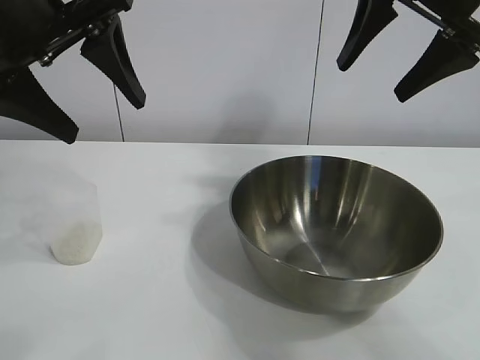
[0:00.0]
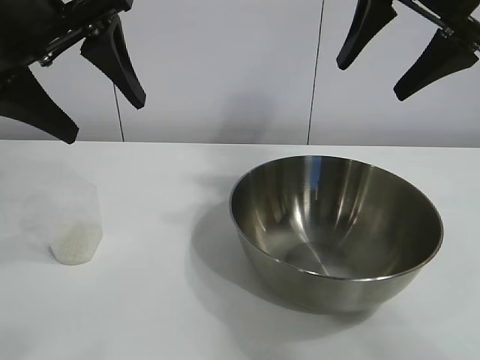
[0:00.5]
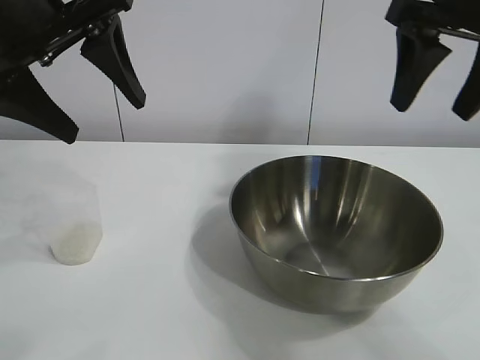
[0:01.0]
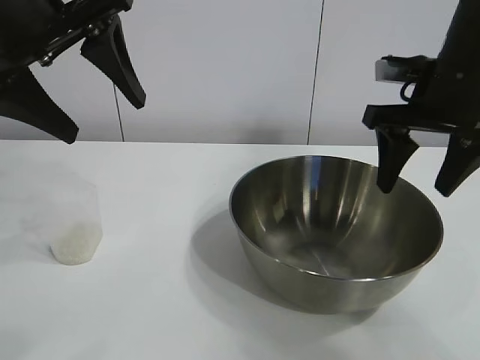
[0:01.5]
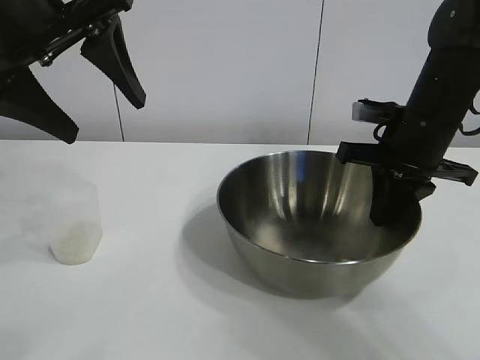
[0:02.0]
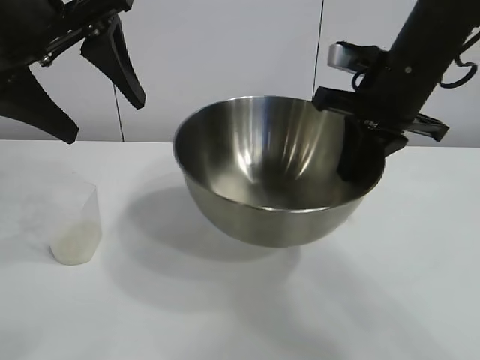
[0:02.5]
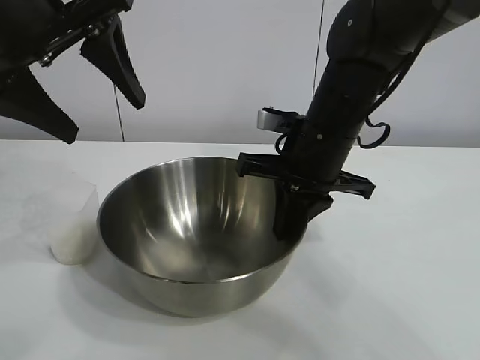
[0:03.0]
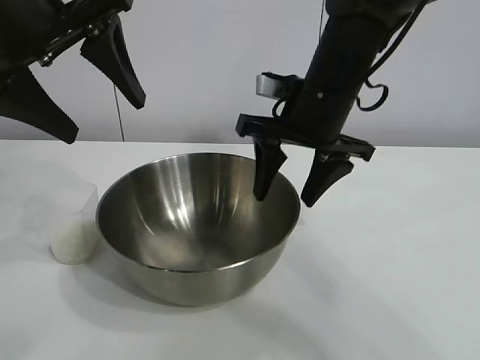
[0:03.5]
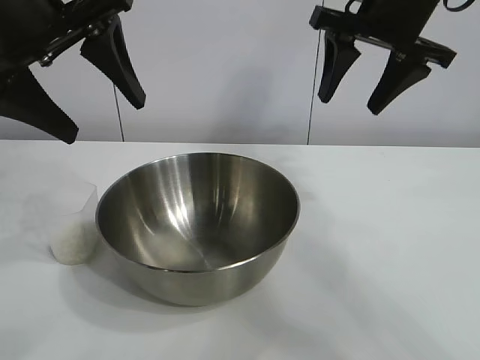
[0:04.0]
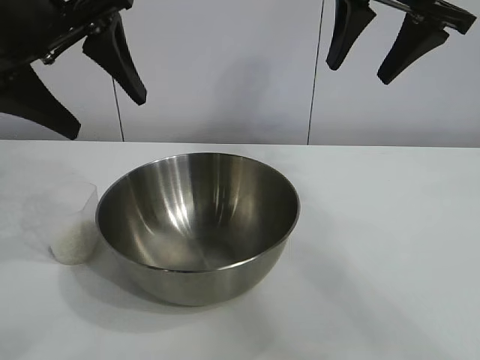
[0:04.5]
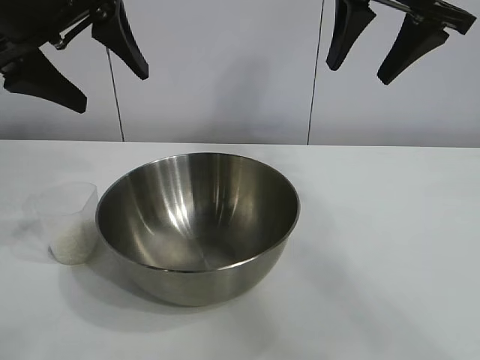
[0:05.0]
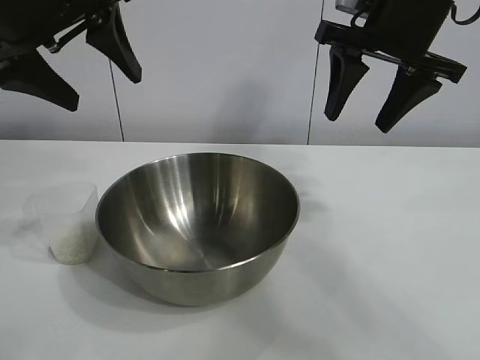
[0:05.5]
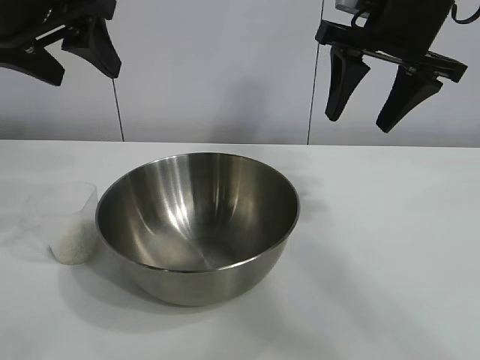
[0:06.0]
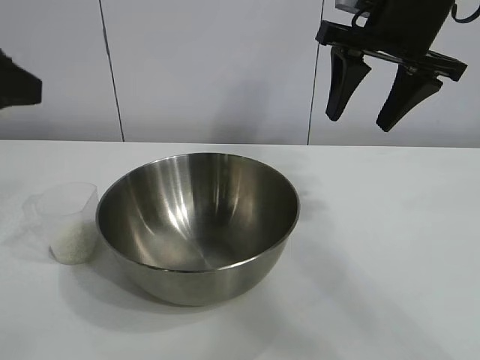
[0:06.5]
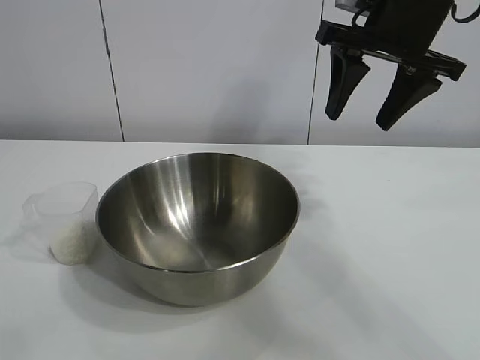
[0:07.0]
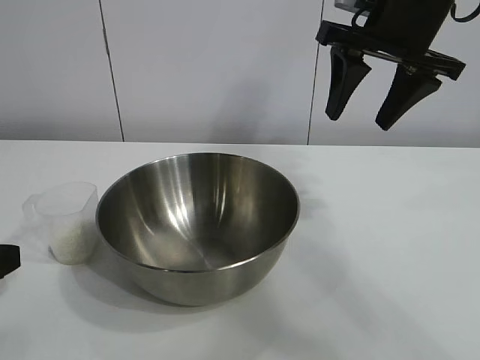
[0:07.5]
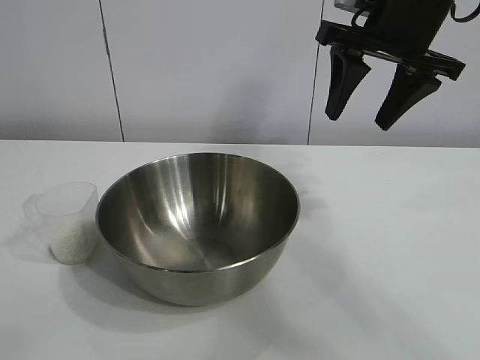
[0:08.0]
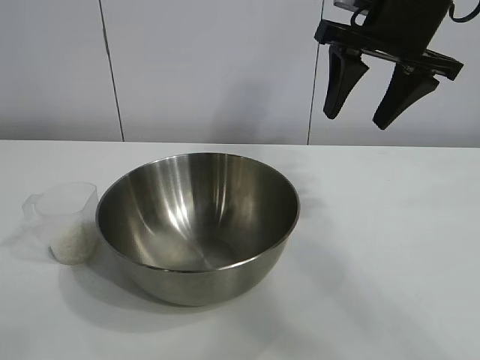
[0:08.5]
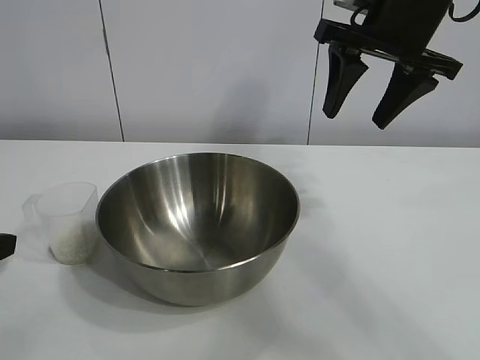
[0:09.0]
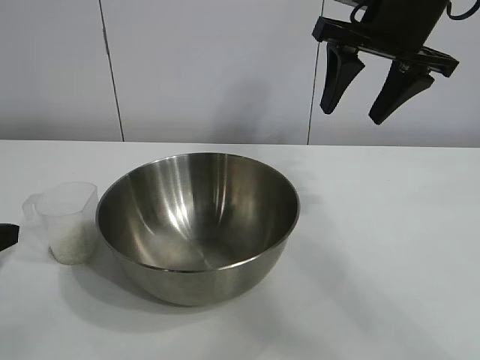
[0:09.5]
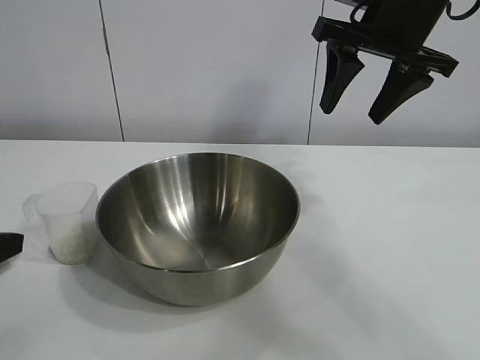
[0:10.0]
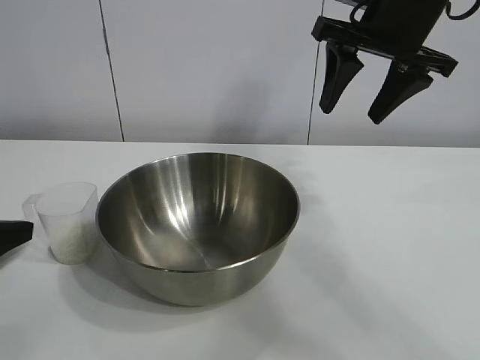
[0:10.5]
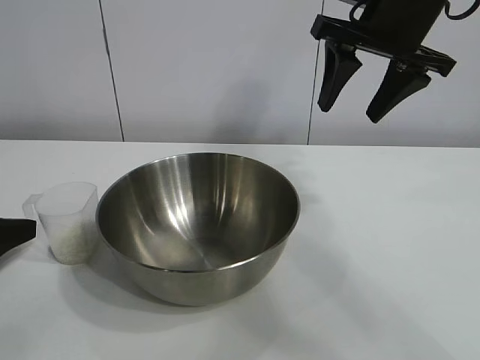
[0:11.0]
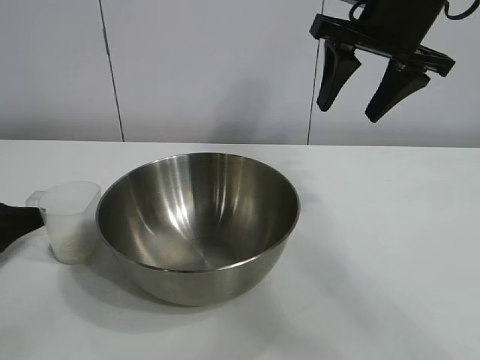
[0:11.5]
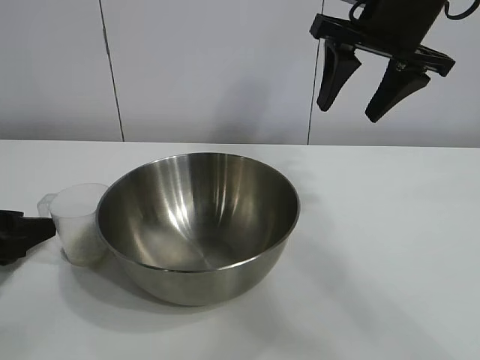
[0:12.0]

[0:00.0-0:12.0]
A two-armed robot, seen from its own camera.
Task of the whole recording: the right gripper grasp the rice container and place it in the center of the table, the left gripper grasp the rice scoop and pour the rice into the rice container.
Step, 0:01.0 to 0:03.5: Move the bowl in the center of view with right gripper.

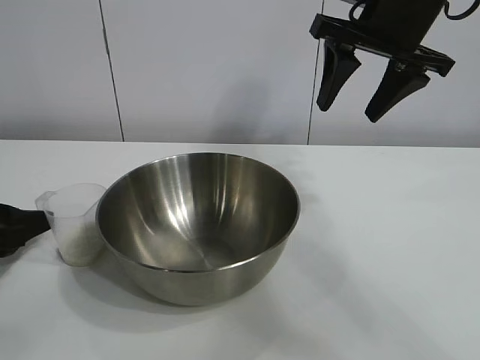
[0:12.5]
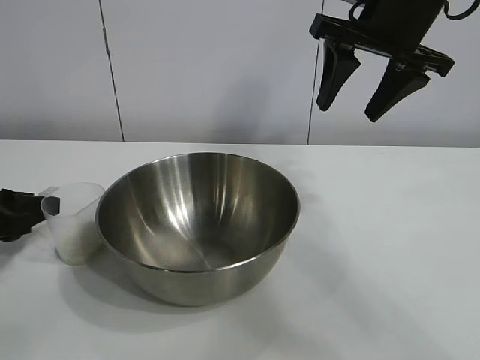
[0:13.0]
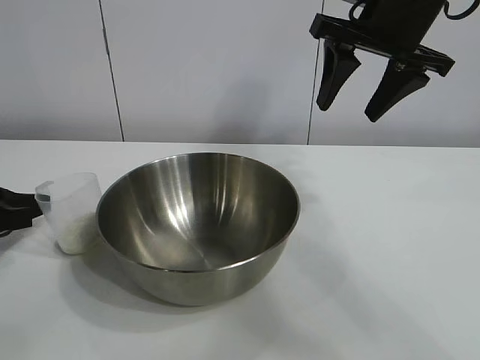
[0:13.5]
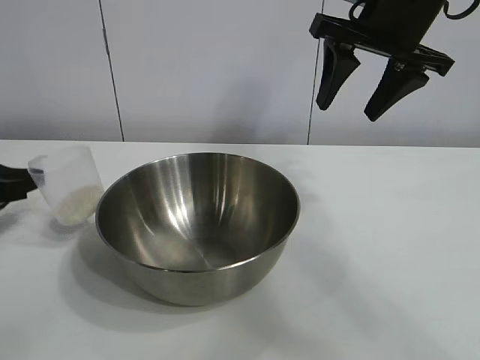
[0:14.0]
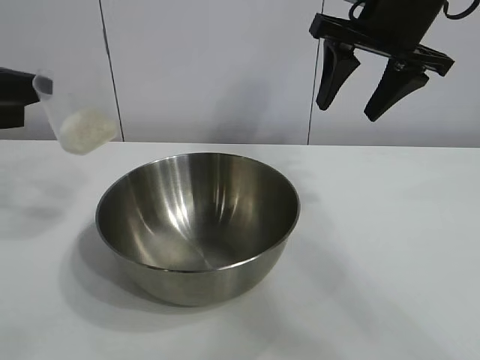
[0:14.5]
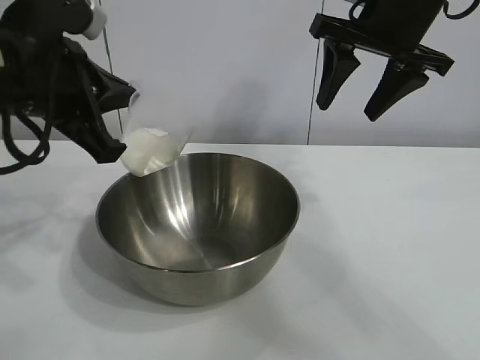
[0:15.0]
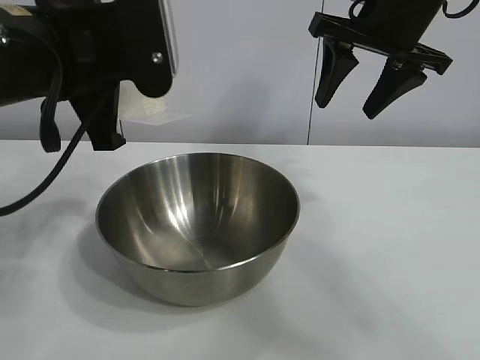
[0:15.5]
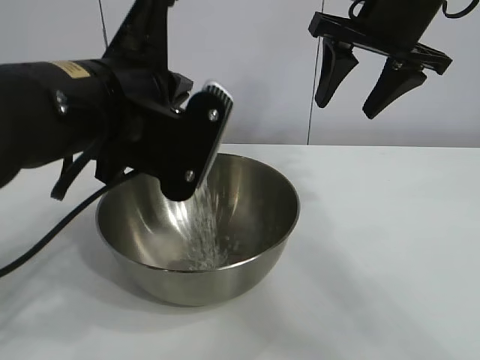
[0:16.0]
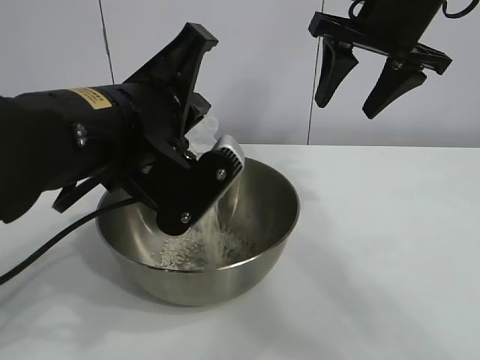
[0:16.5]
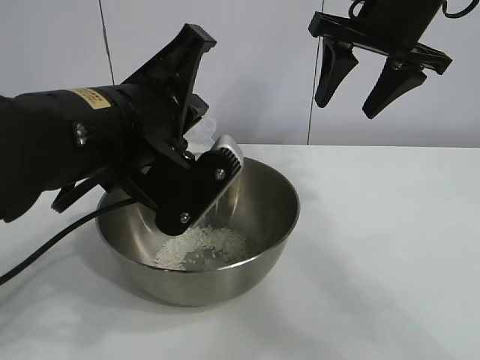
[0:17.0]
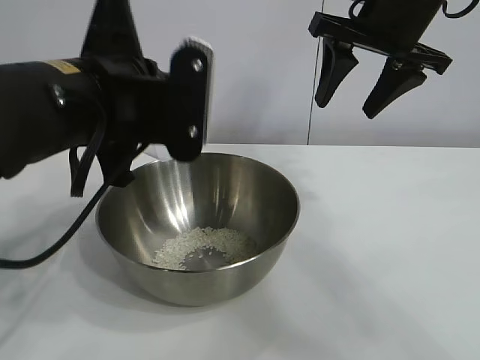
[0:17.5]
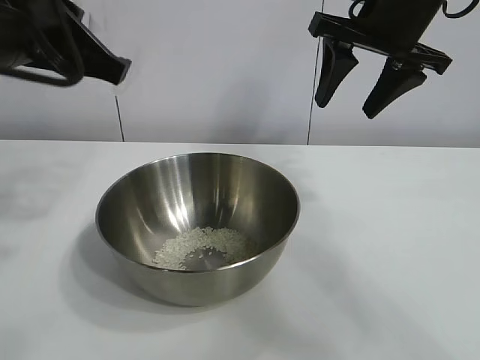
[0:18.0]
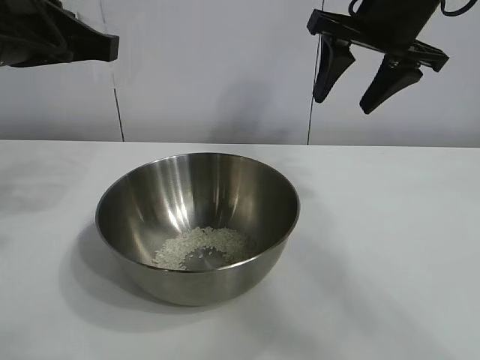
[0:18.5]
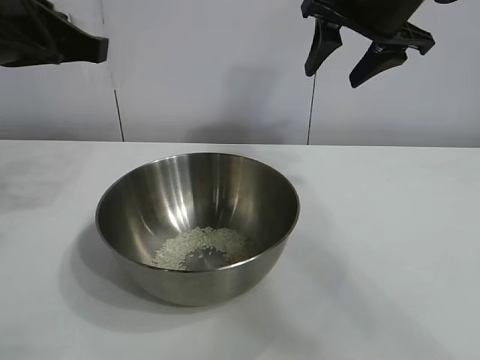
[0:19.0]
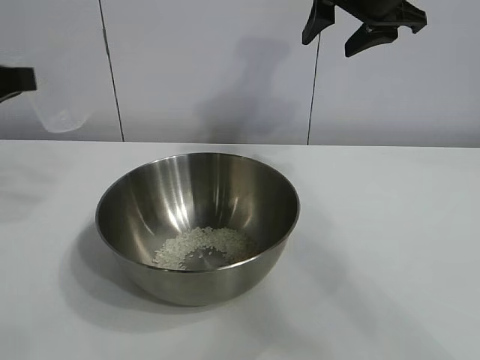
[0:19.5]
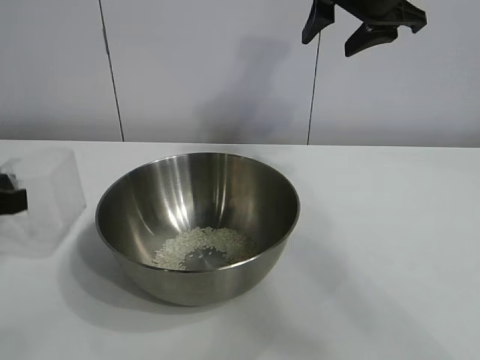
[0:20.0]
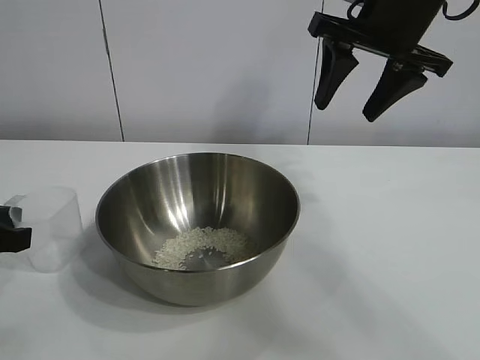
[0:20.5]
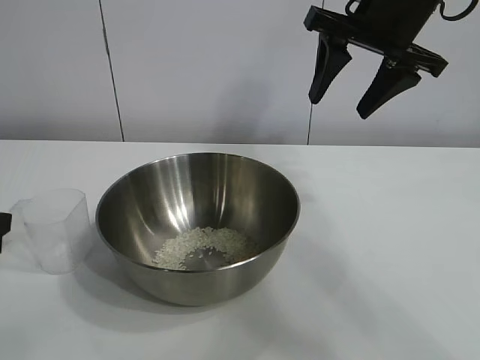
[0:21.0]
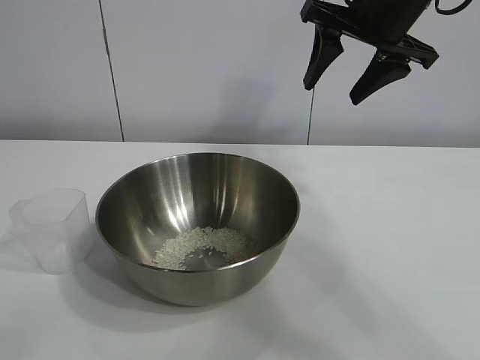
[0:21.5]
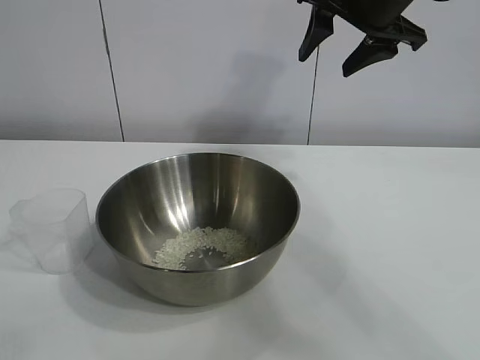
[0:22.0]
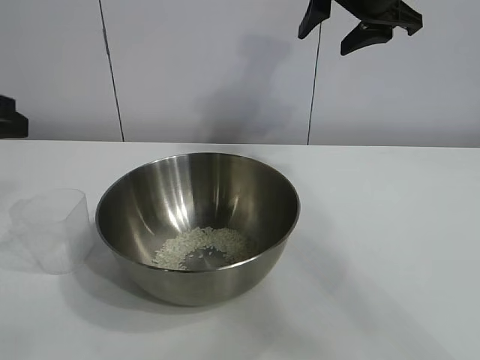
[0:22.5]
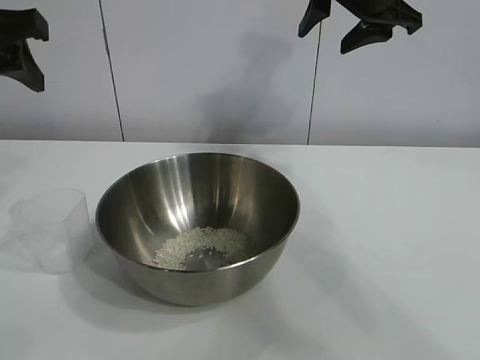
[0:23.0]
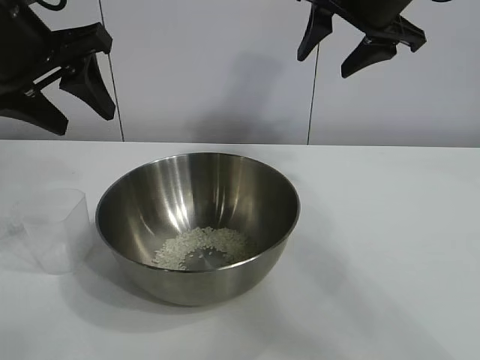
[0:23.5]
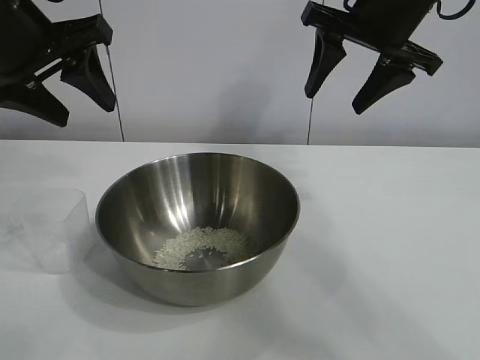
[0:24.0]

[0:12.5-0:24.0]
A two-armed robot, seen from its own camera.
Task of the whole recording: the right gripper grasp the rice container and place it in the center of the table, the left gripper grasp the rice scoop and pour the rice into the rice container.
Step, 0:14.0 to 0:17.0: Pour the rice from the cup into the bowl with the left gripper.
Step, 0:17.5 to 0:20.5: Place the cup on the table with the left gripper.
